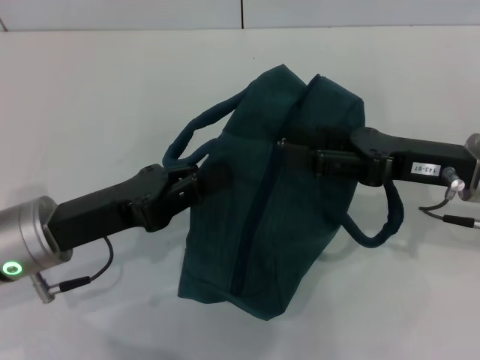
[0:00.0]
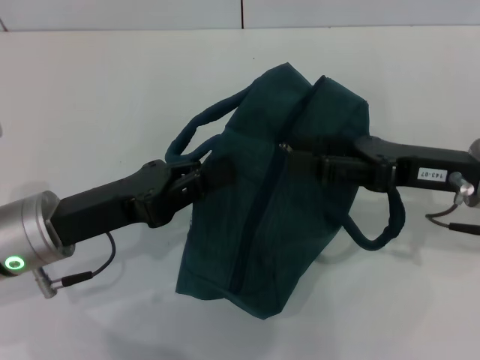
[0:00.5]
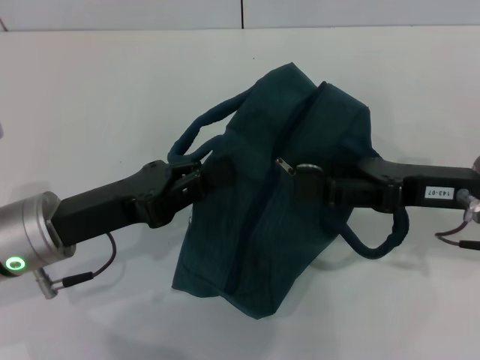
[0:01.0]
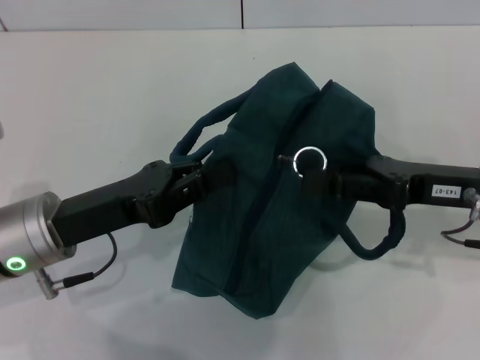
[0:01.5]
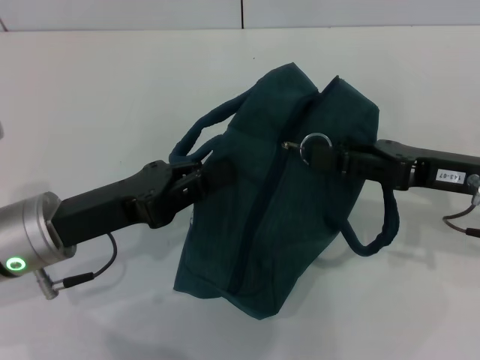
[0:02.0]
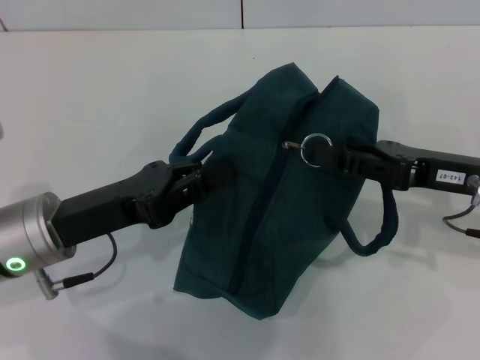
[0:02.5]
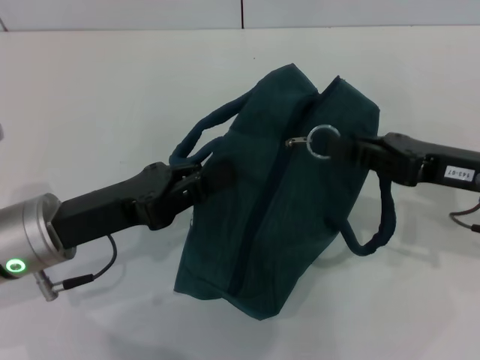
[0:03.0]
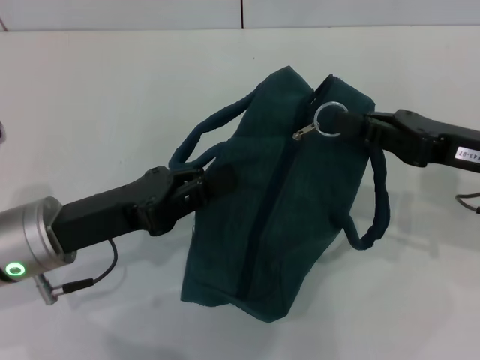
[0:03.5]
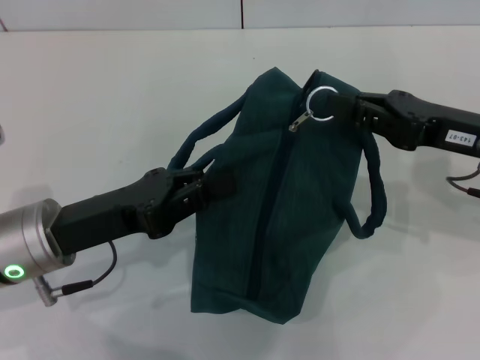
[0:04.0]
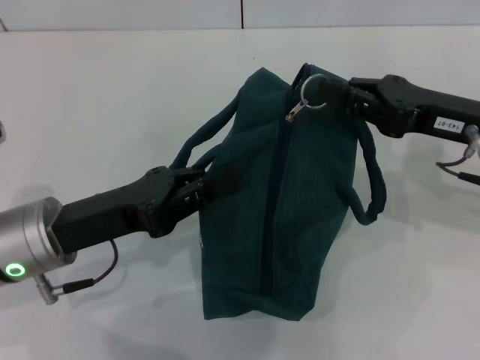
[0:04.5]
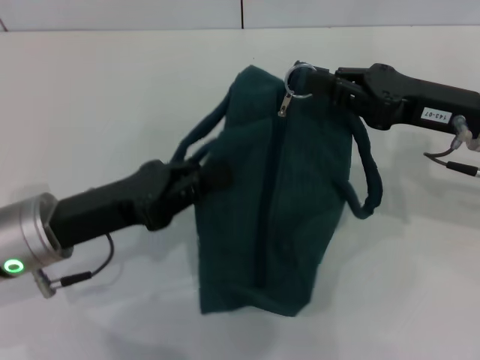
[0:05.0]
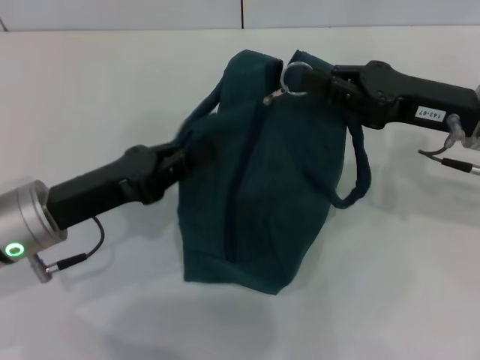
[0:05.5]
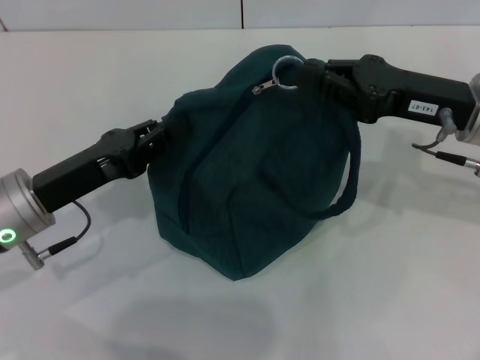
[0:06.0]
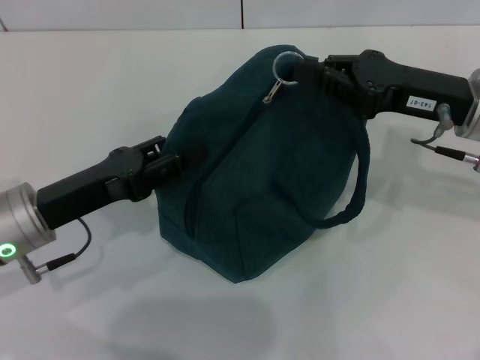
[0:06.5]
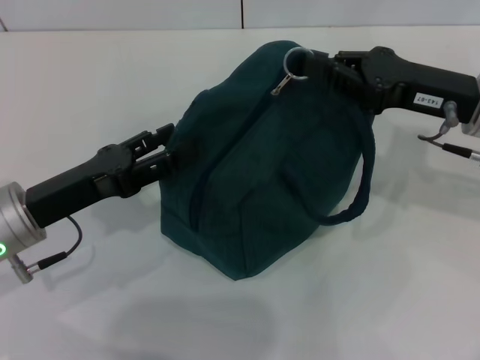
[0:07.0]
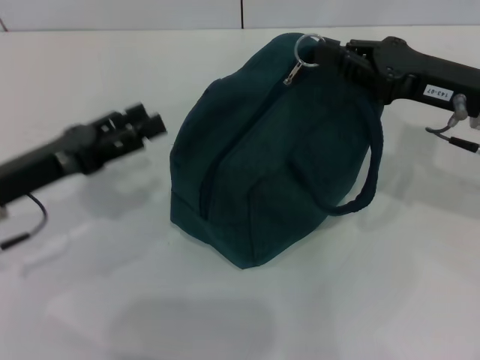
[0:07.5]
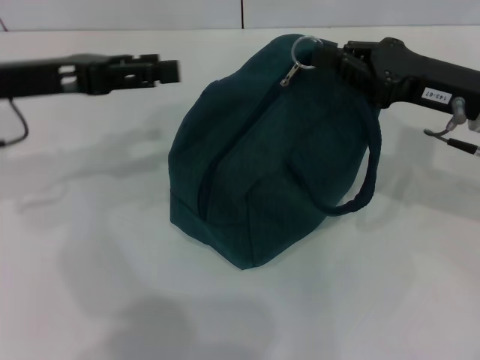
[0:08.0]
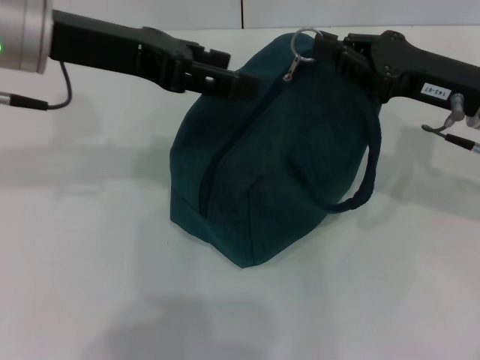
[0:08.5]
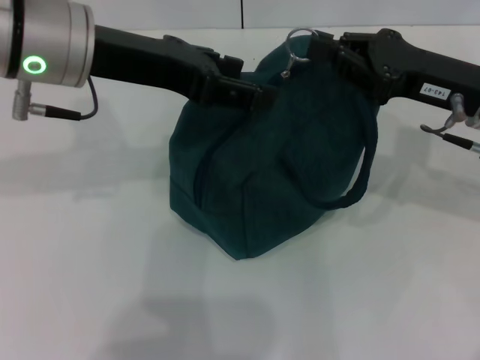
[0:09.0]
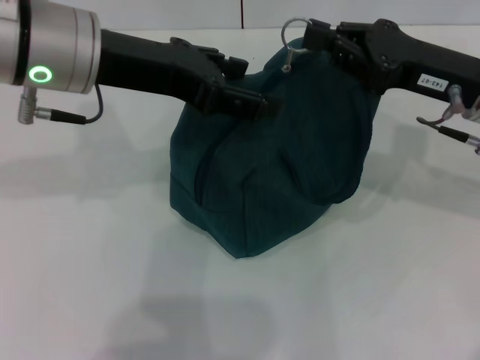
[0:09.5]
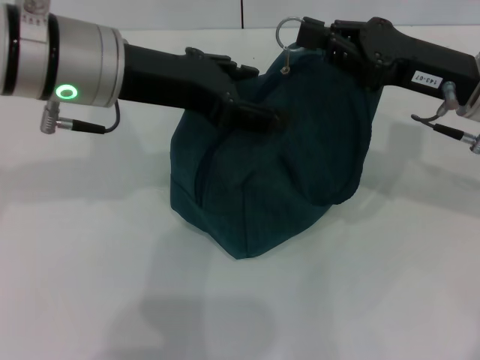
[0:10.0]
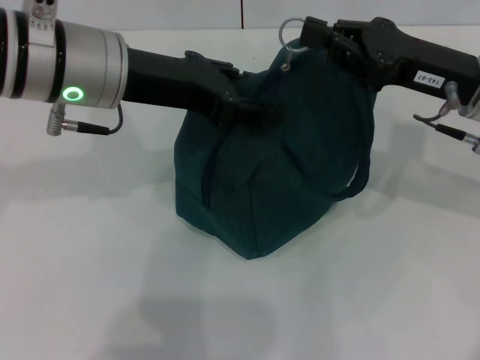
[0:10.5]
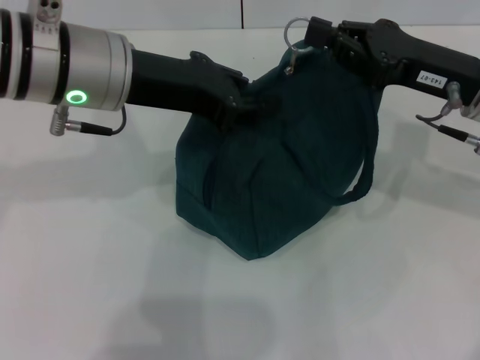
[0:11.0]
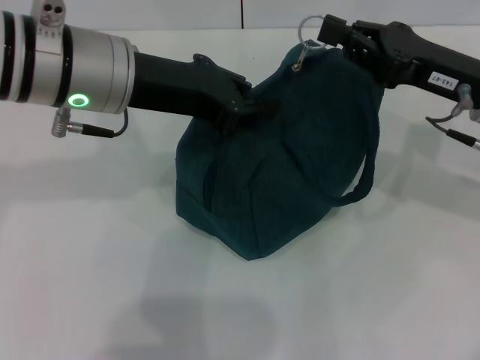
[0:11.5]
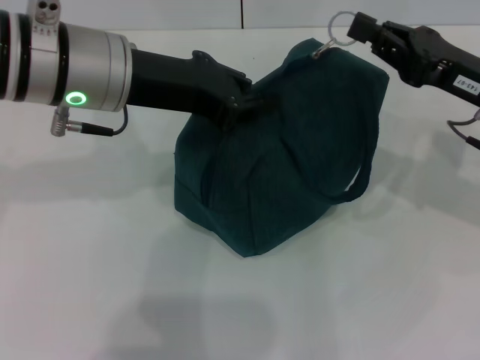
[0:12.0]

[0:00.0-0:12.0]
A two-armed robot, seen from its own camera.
0:00.0 to 0:02.0: The right gripper closes its fingers.
0:02.0 to 0:04.0: The right gripper closes up.
0:06.0 to 0:08.0: The left gripper is displaced upward and forward by some 15 cm, and opens its fingers.
0:08.0 to 0:10.0: The left gripper is displaced to the right by about 10 cm.
0:10.0 to 0:12.0: The left gripper closes.

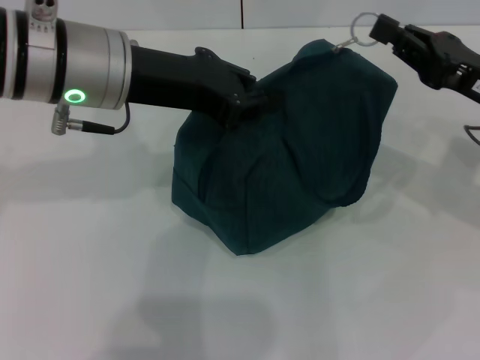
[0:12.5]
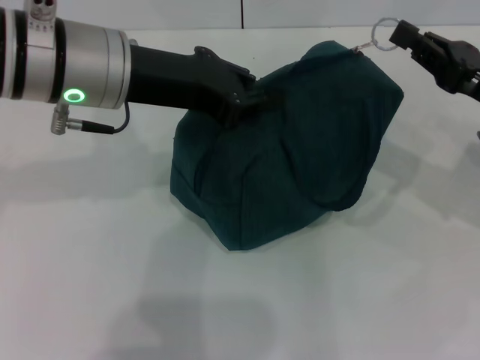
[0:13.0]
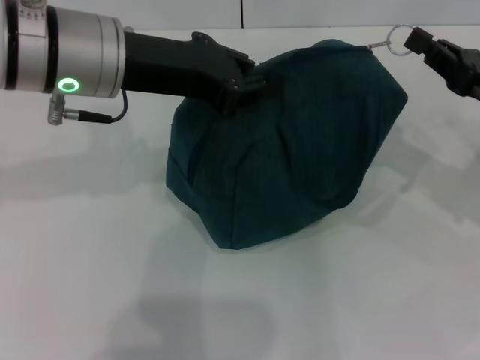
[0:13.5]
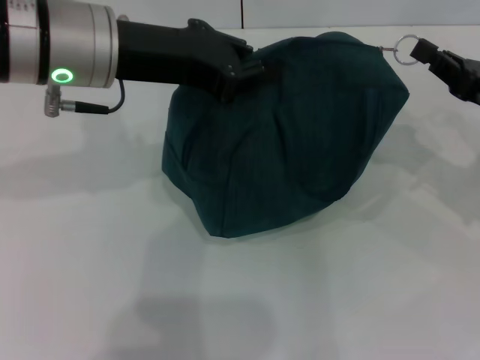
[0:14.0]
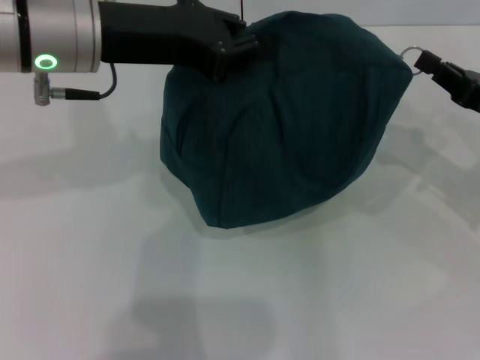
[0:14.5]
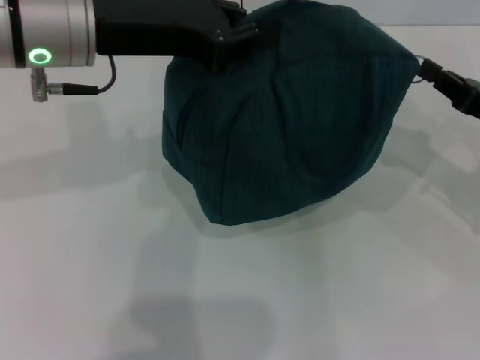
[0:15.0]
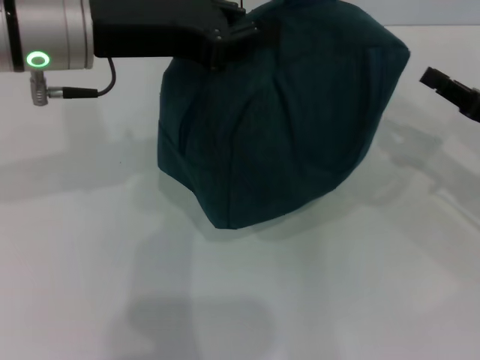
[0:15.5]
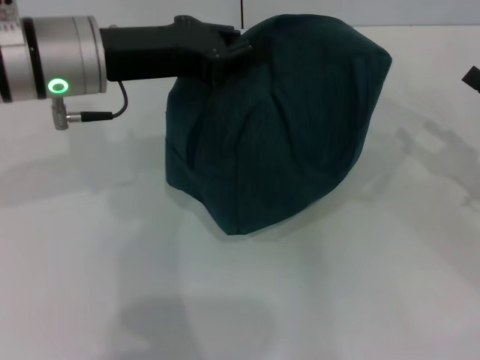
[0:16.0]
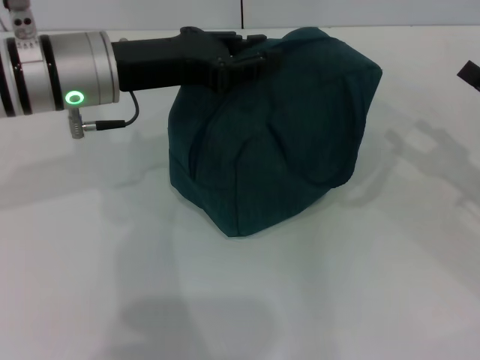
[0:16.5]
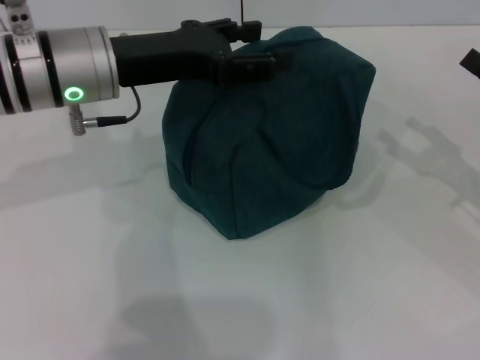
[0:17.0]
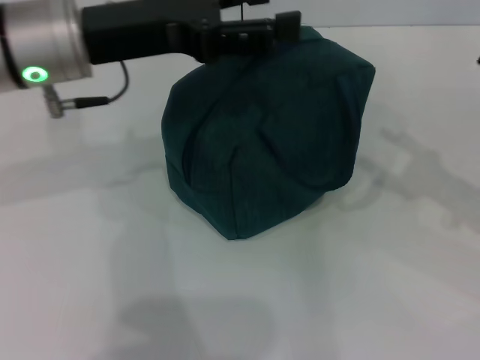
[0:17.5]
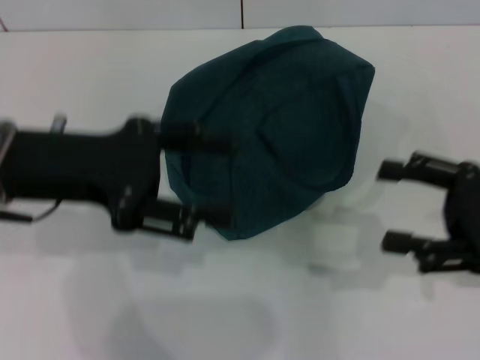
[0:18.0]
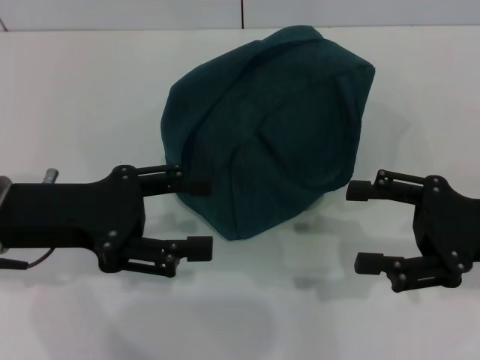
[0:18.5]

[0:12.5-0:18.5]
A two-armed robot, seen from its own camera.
Step, 0:12.5 to 0:15.0: Zip up the lunch bag with your right hand.
Step, 0:15.5 to 0:17.0: Hold the lunch bag with your left hand.
0:12.5 to 0:14.5: The right gripper shifts by about 5 cm.
0:14.5 to 0:16.5: The left gripper shifts roughly 5 cm downward. Meanwhile the right gripper opens its fingers.
0:16.5 to 0:18.5: The right gripper travels to the left by approximately 5 cm. The left gripper travels backward and to the left by about 10 cm, and opens.

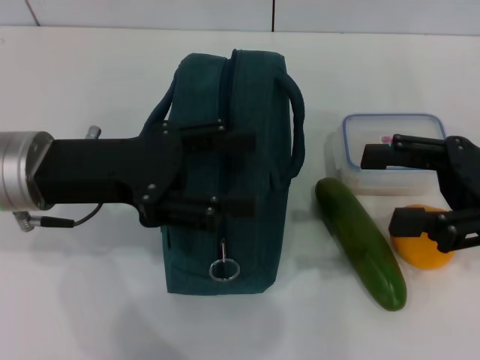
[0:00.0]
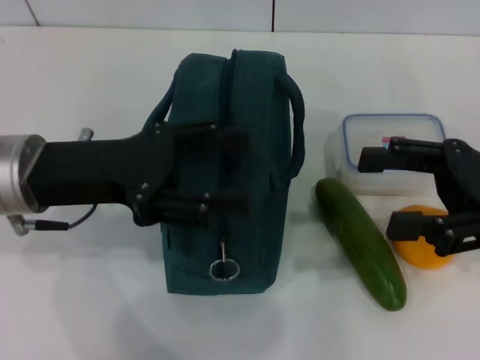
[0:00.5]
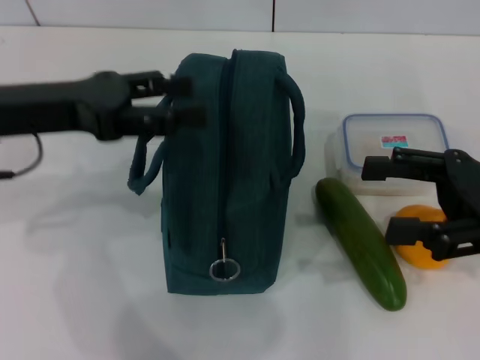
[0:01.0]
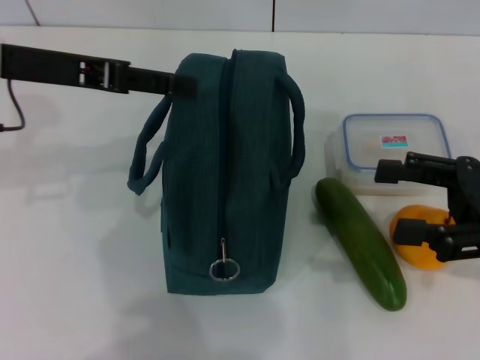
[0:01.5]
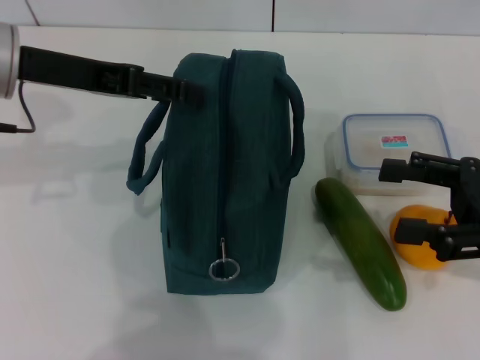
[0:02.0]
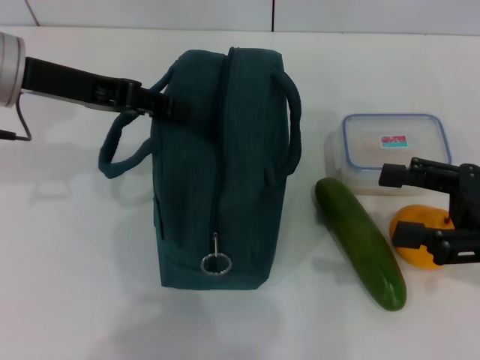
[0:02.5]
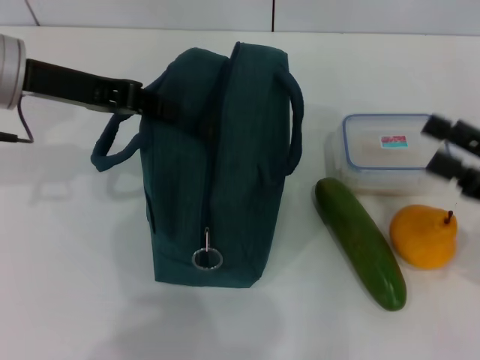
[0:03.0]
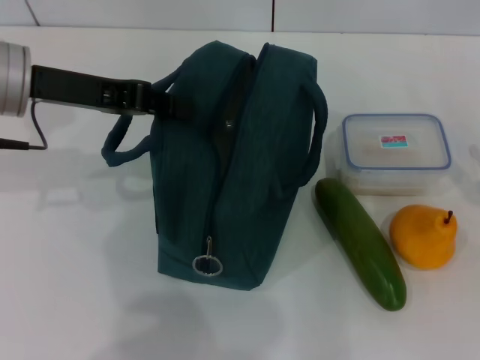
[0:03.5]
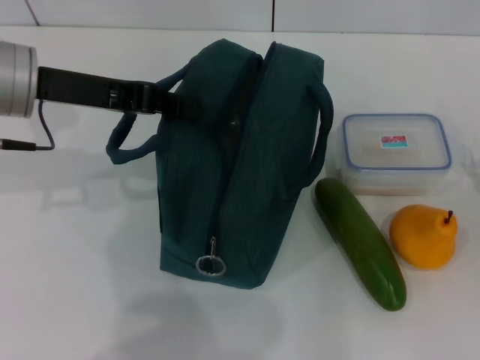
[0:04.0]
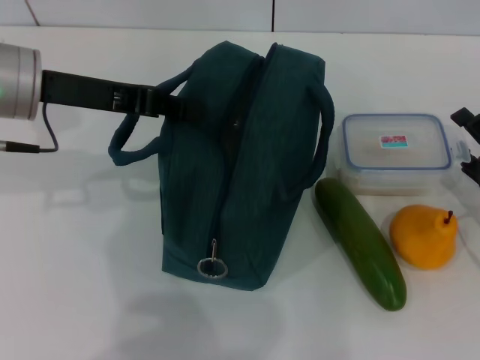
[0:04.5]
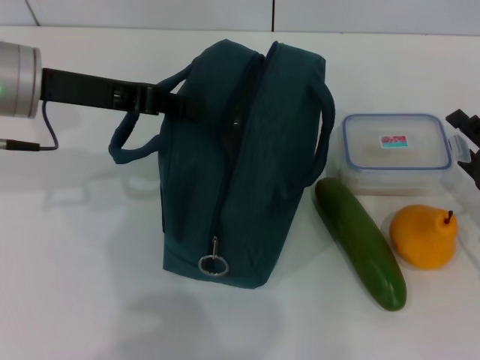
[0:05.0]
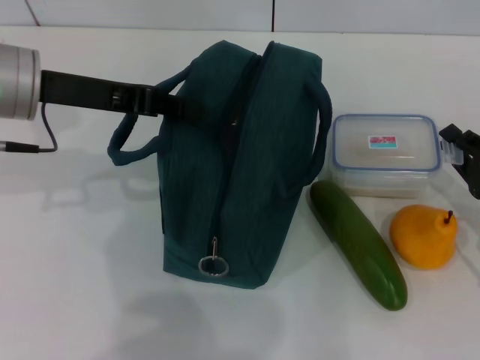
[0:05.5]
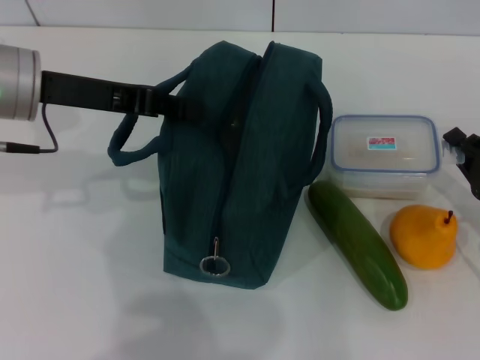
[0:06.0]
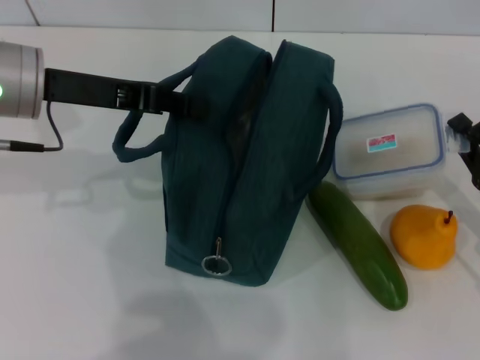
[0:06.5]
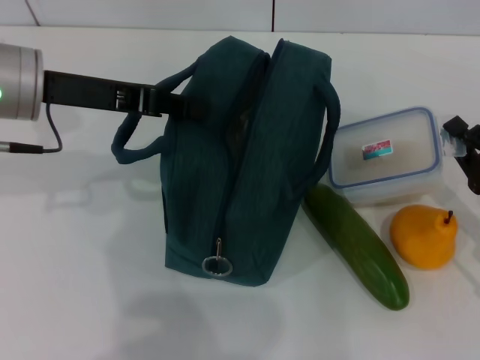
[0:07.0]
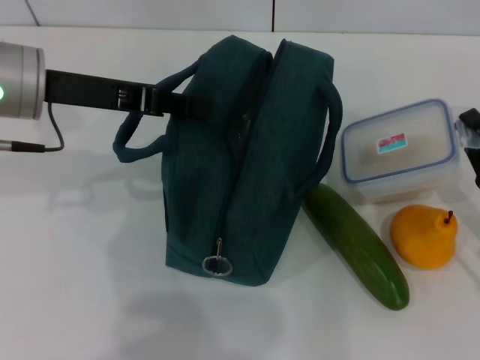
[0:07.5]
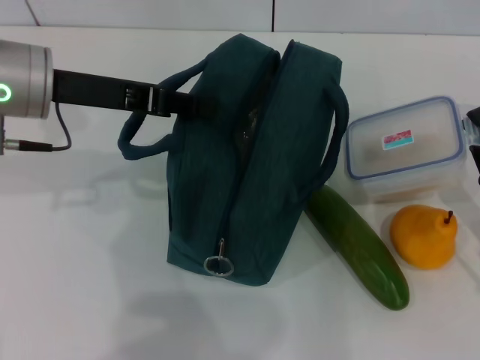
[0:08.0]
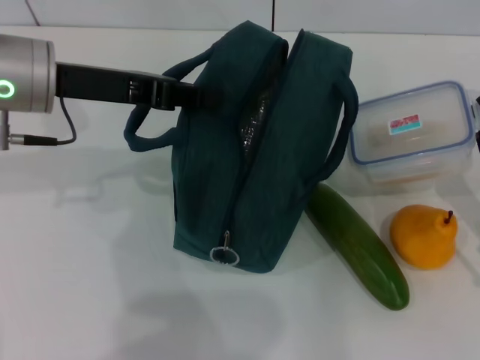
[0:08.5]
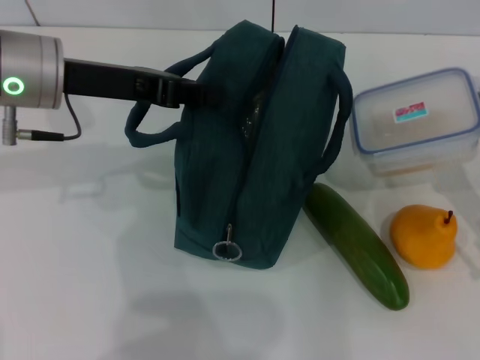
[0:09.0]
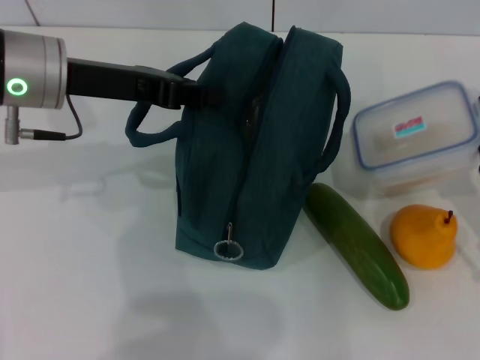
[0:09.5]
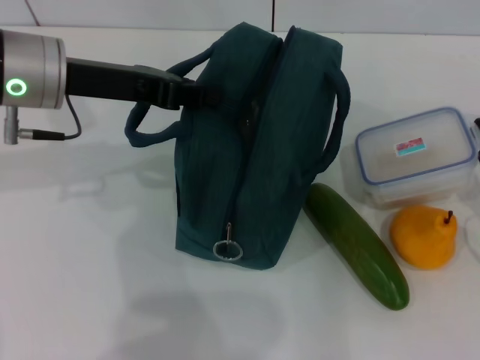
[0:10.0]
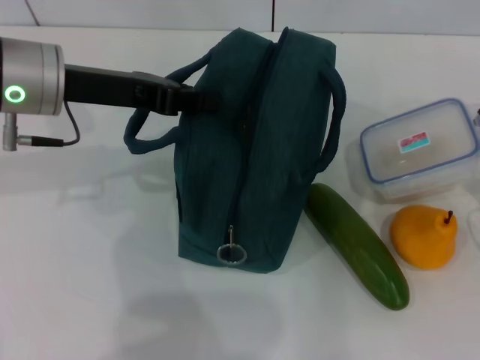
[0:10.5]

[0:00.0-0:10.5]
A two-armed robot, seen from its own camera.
Step, 0:00.0 to 0:03.0: Hold the lunch bag with your left hand.
0:00.0 to 0:02.0: The left gripper goes about 10 cm forward and upward.
0:02.0 to 0:04.0: The left gripper closes its fingers. The right gripper moves downward, about 10 cm.
0:04.0 to 0:06.5: The right gripper closes its fingers.
0:08.5 to 0:10.5: The grippers move only a little.
